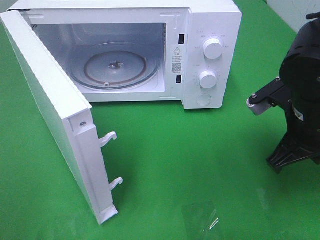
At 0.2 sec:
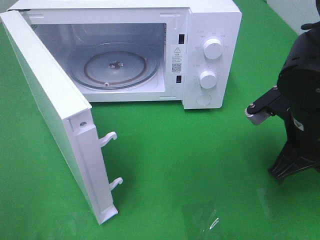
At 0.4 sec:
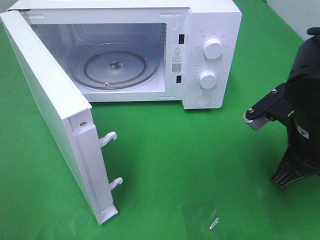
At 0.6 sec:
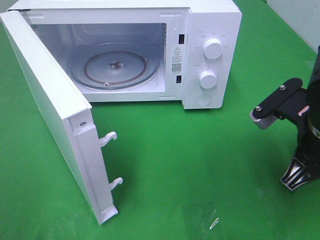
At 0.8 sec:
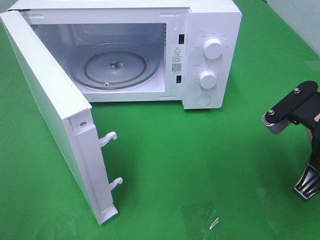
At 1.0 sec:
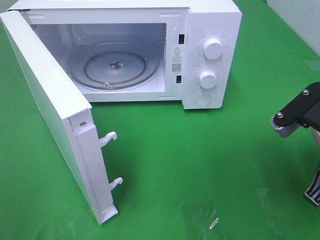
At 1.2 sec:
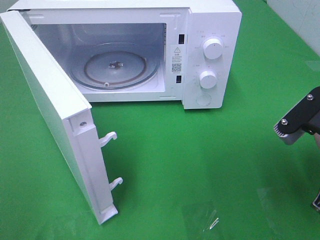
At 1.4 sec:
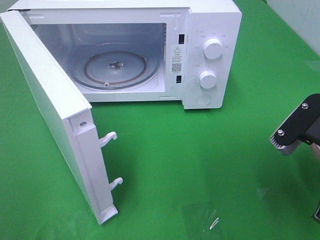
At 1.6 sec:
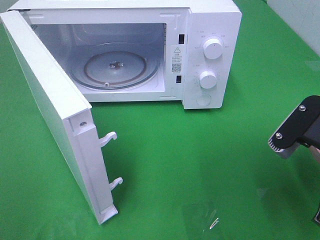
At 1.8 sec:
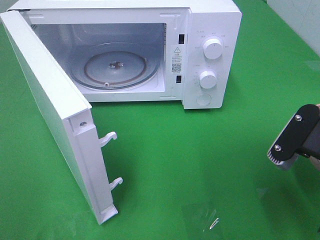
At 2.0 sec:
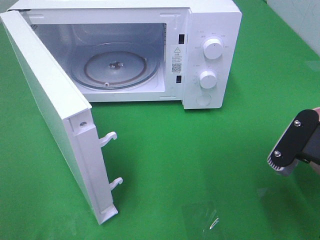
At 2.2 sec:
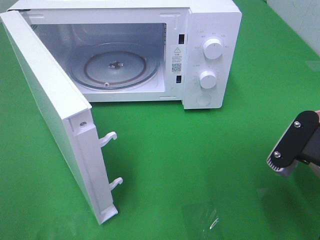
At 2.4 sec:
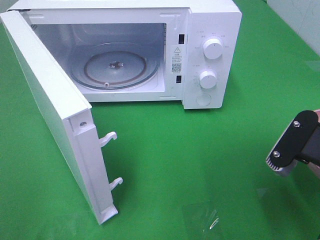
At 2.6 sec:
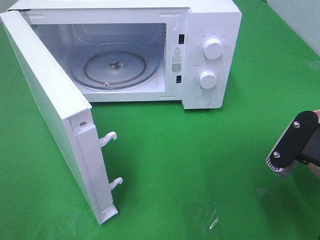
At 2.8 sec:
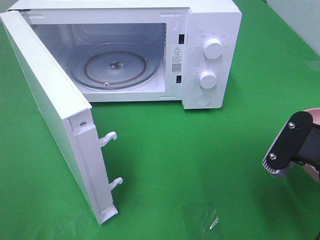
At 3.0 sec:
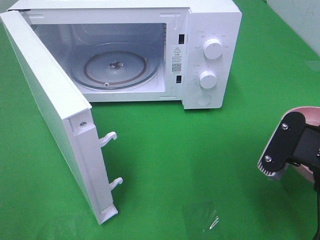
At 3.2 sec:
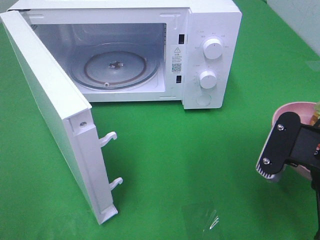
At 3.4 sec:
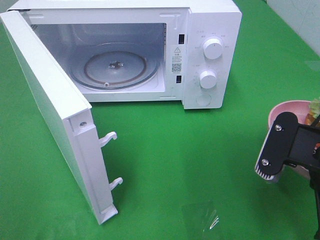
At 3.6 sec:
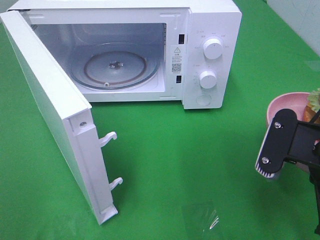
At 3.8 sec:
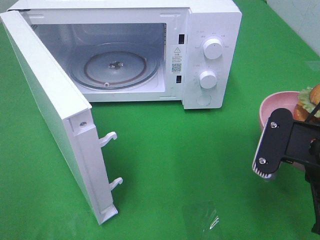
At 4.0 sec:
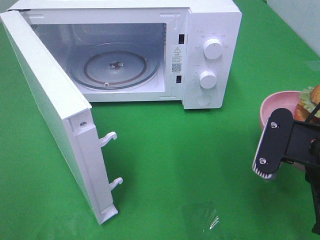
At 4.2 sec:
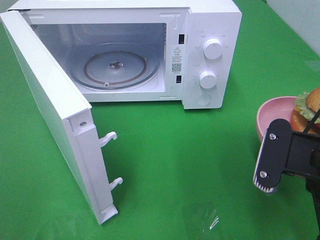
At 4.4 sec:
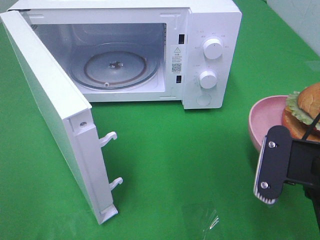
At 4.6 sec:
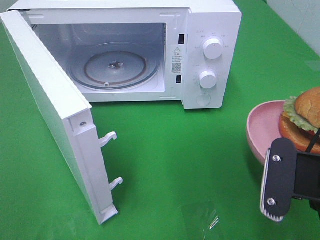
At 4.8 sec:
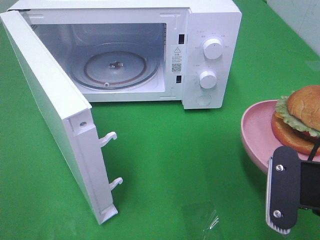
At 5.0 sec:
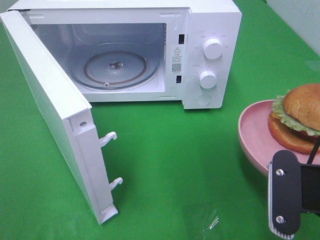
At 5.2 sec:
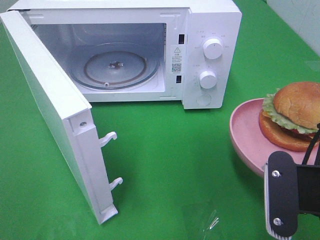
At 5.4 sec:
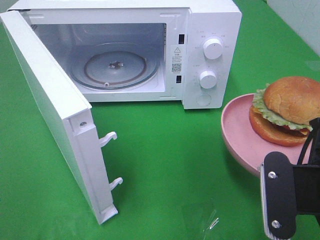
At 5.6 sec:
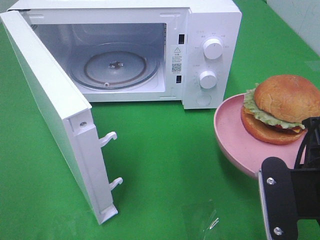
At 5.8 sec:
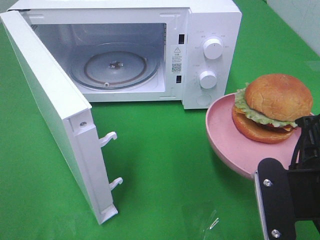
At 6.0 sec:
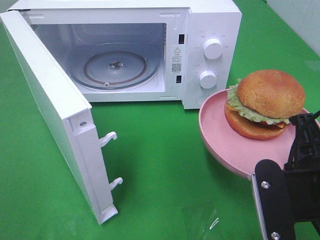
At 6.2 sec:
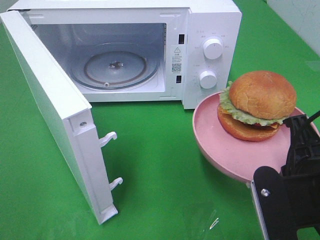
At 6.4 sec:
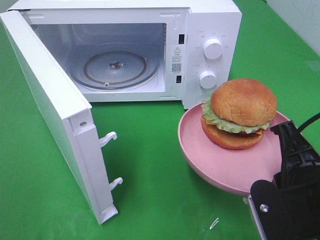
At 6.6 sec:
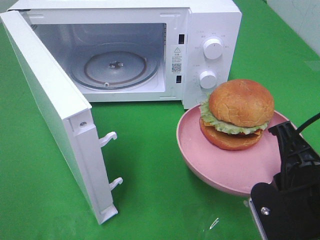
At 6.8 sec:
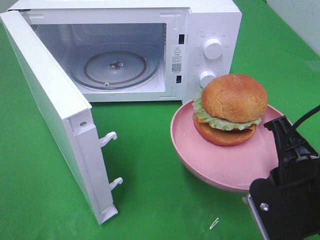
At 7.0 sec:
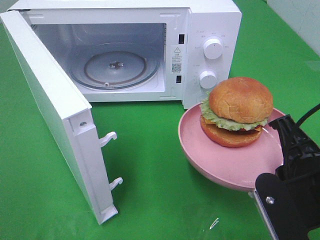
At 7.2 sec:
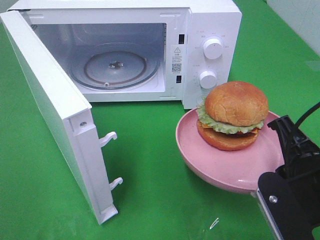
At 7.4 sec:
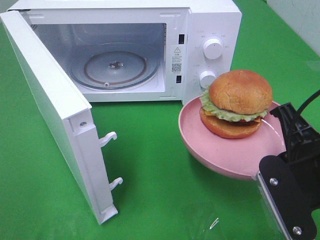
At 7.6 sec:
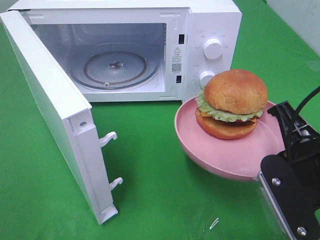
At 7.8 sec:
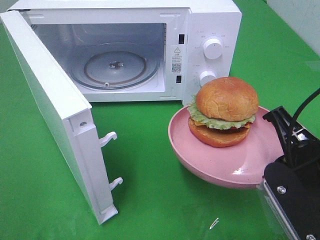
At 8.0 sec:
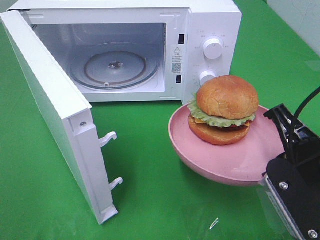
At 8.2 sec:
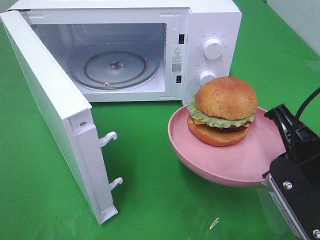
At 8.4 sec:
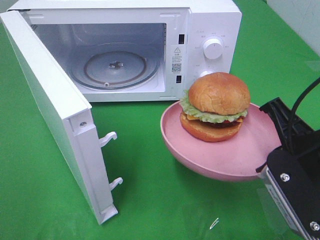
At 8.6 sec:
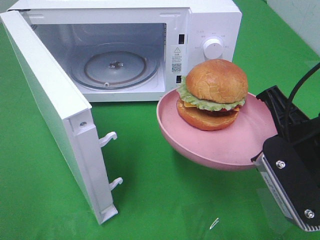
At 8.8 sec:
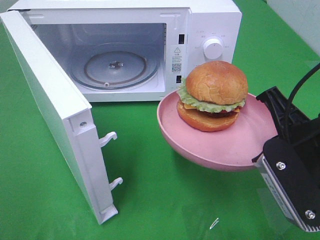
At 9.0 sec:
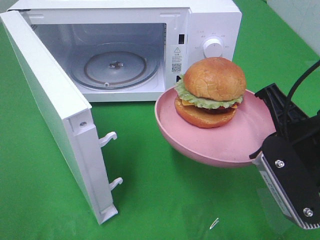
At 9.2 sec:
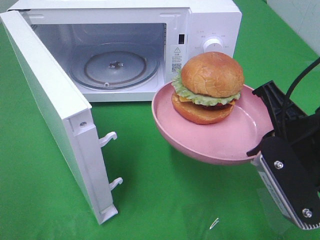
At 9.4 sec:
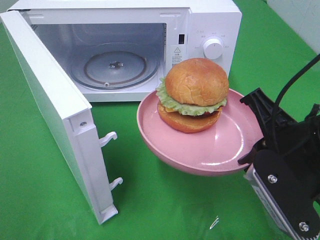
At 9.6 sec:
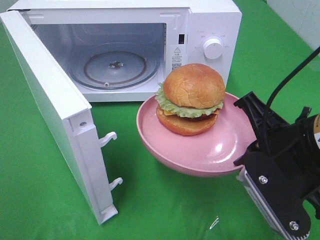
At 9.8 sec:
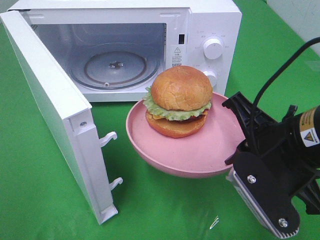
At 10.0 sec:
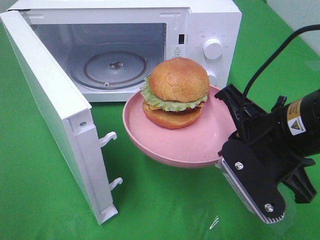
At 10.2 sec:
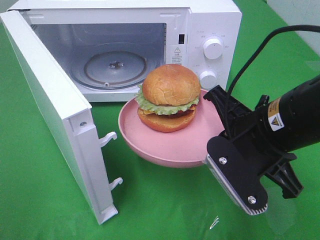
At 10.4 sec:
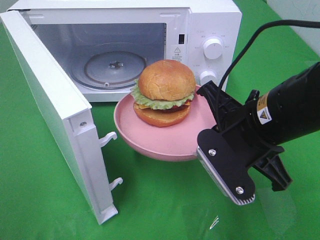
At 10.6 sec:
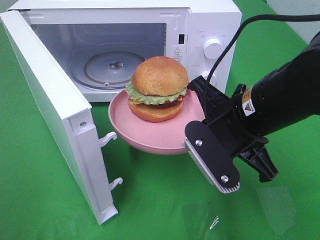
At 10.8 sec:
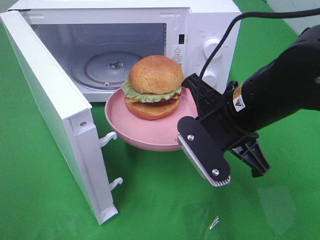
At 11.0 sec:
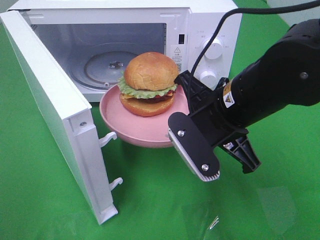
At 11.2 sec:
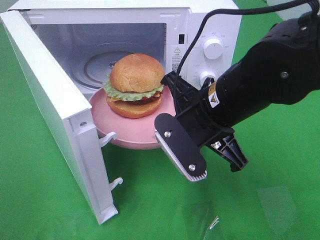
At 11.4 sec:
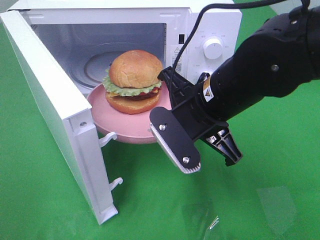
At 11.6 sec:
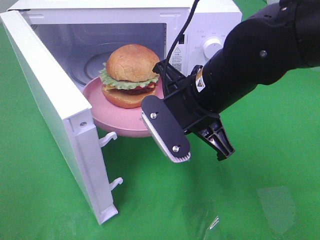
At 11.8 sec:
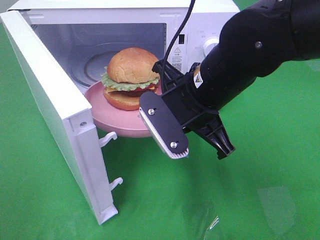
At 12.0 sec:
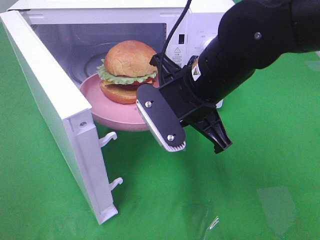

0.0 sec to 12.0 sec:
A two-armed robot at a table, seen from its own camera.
Task of the whole recording: Heat the burger.
0.0 sec to 1.6 sec: The right gripper travels backward by about 10 cm.
1.6 sec to 3.0 sec: The grippers stay close to where they were, moving slightly.
3.0 sec to 4.4 sec: The grippers move only a little.
6.0 sec to 7.6 sec: The grippers move only a little.
7.6 sec to 9.0 sec: The grippers move only a little.
9.0 sec to 10.4 sec: The right gripper shifts some 5 cm to the left.
10.4 sec to 12.0 sec: The right gripper is displaced to the left by some 5 cm.

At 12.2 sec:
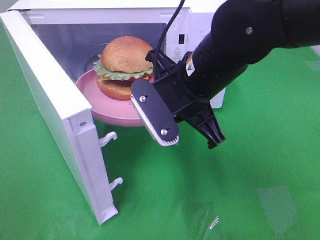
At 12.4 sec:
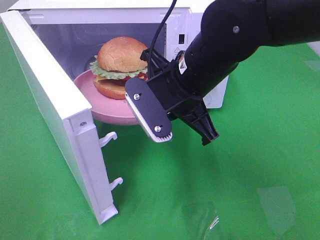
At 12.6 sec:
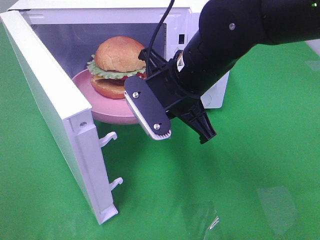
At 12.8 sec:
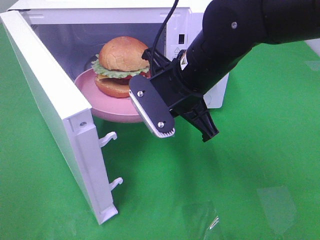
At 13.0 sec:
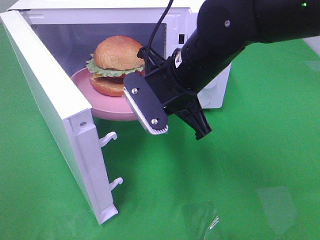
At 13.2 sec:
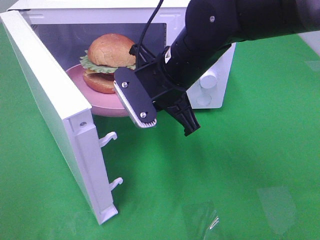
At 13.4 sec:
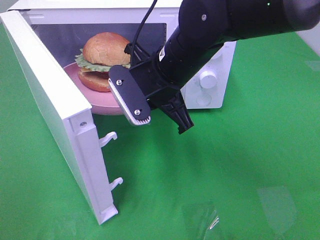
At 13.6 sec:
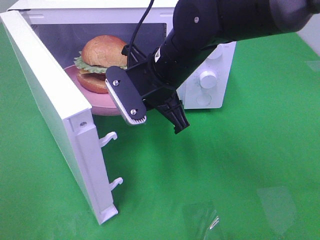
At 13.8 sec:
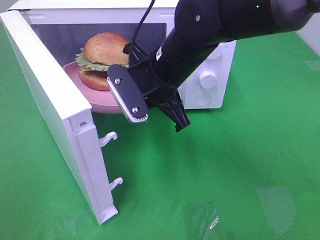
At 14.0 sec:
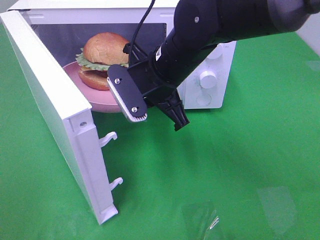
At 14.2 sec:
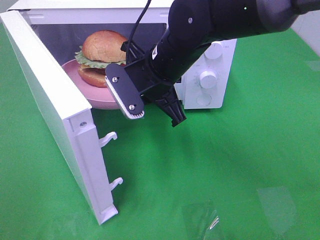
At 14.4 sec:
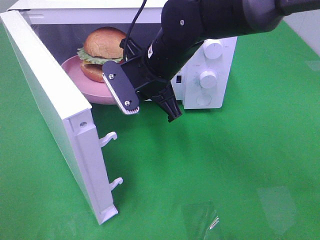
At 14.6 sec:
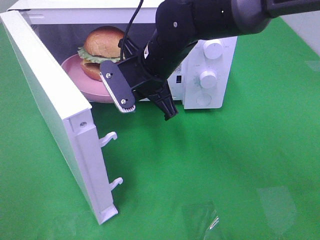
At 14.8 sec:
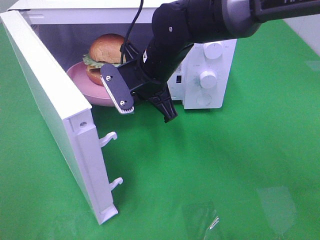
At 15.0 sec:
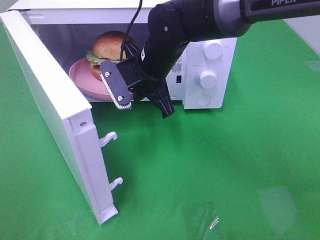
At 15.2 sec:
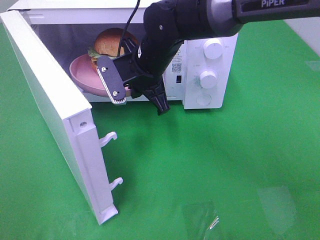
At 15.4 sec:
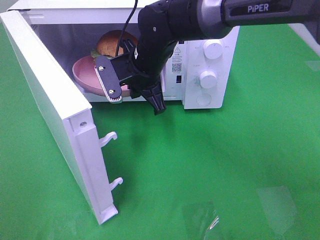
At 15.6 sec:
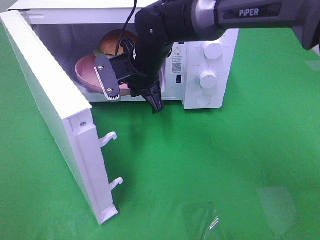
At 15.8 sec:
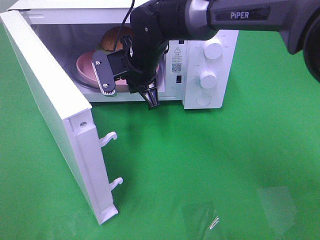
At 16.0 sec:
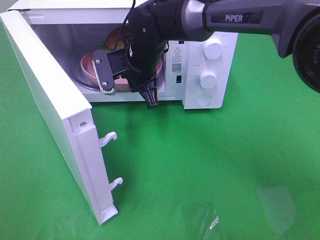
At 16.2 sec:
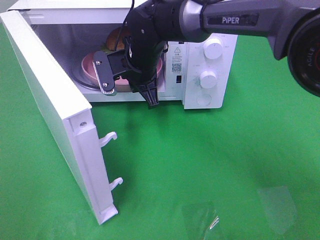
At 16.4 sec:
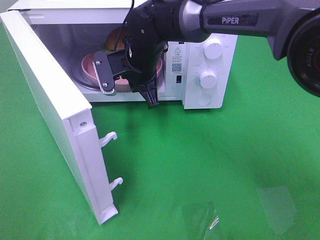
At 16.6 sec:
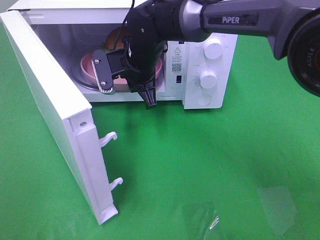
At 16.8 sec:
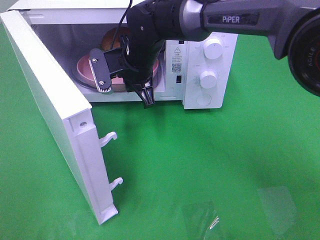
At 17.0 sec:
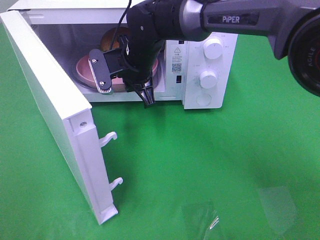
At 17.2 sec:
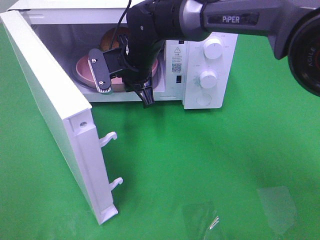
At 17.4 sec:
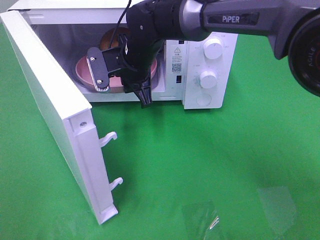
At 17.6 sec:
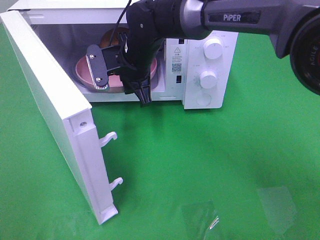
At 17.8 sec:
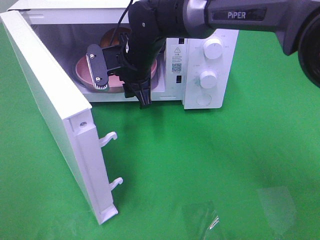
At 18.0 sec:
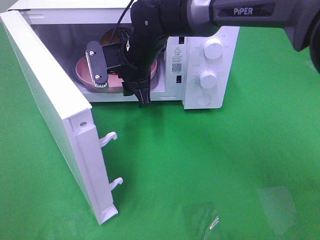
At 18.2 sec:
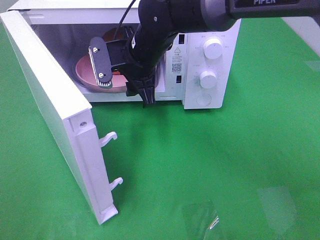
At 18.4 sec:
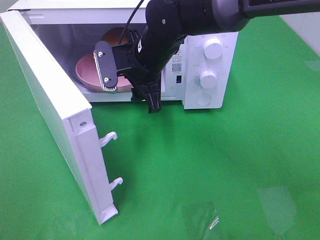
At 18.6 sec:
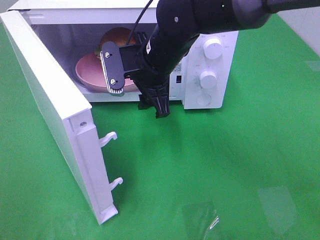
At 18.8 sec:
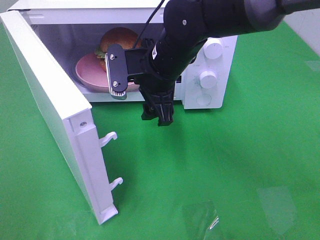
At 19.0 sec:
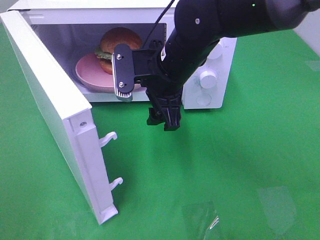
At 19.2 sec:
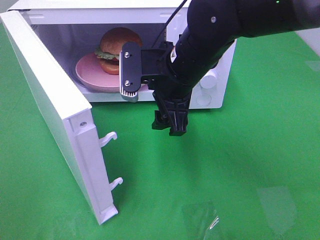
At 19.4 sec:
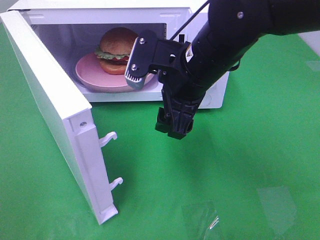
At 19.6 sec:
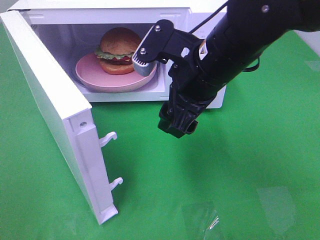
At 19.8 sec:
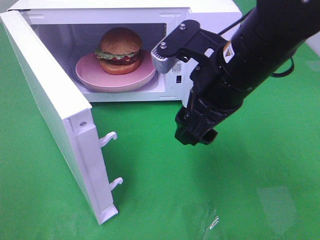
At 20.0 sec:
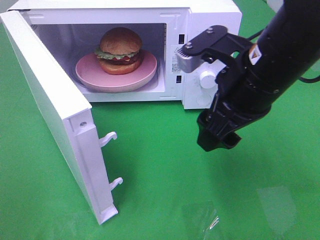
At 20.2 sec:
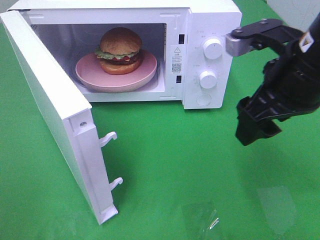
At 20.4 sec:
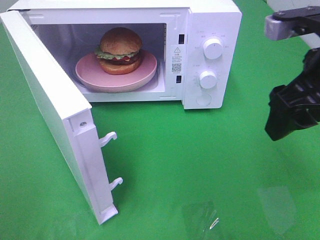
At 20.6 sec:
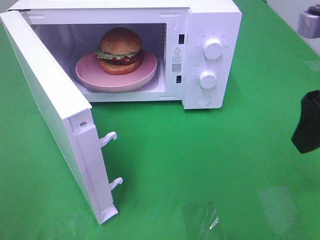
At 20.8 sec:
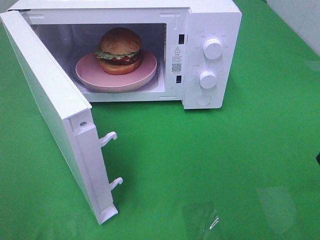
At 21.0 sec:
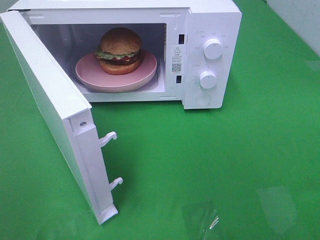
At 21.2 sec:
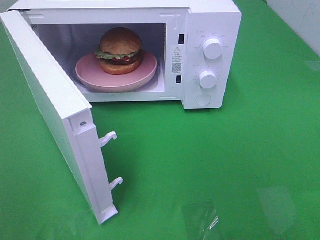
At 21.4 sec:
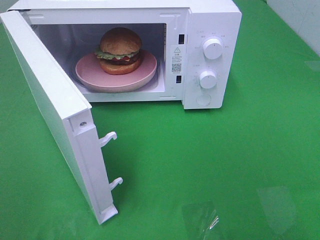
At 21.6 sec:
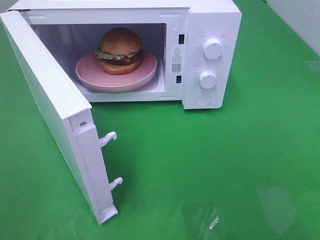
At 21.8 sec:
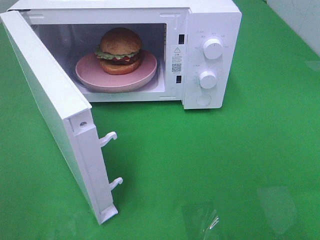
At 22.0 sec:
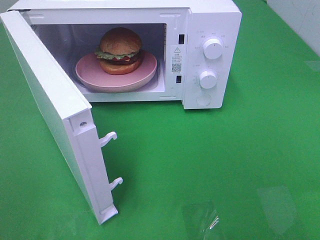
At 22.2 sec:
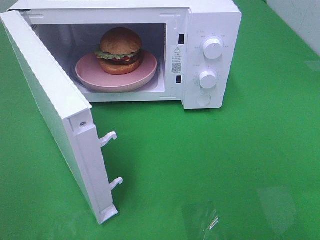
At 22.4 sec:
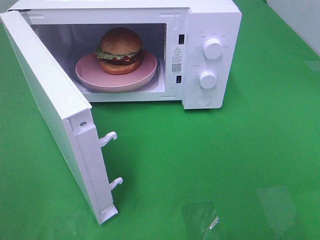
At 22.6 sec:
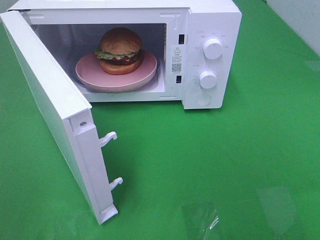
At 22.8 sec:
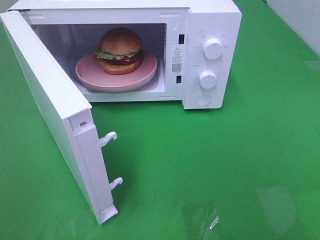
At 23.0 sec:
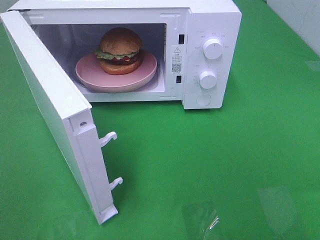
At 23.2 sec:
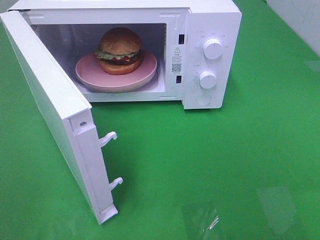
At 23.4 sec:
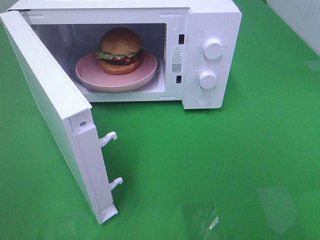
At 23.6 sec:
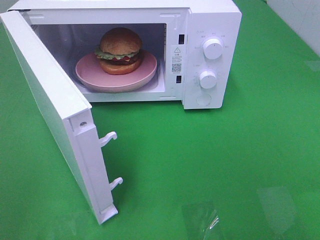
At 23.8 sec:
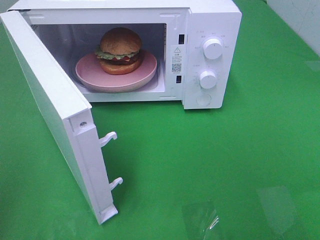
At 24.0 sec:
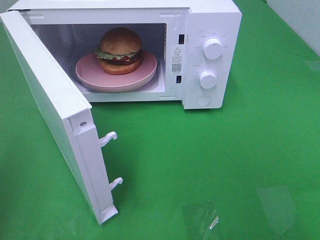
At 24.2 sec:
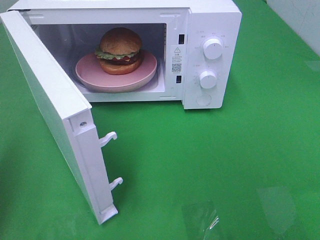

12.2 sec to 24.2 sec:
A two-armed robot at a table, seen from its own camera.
Task of the whole recording: Heat the burger.
Step, 12.2 sec to 17.4 sec: Right hand: place the plate in the microwave.
12.2 sec to 13.8 sec: The right gripper shifts by roughly 5 cm.
13.8 sec to 15.2 sec: The right gripper shifts some 5 cm forward.
15.2 sec to 16.6 sec: The grippers make only small movements.
16.6 sec to 18.2 sec: The right gripper opens up.
18.2 sec to 19.8 sec: The right gripper heads backward, to the right and upward, covering roughly 20 cm.
19.8 sec to 21.2 sec: The right gripper shifts roughly 25 cm backward and to the right.
22.6 sec to 24.2 sec: The left gripper goes some 15 cm forward, and closes.
